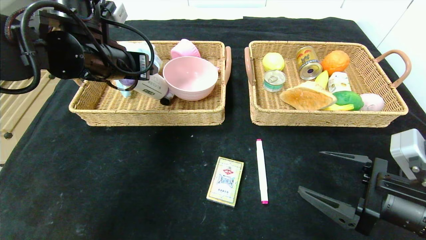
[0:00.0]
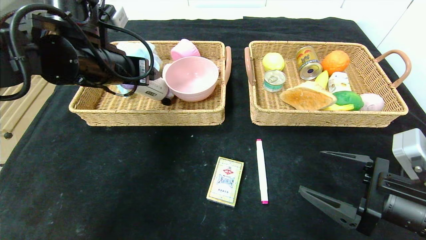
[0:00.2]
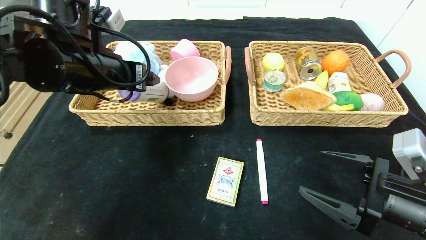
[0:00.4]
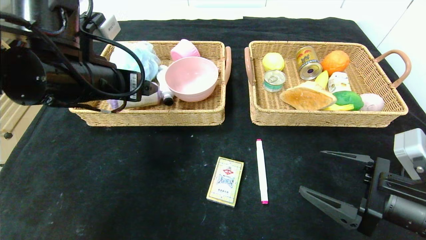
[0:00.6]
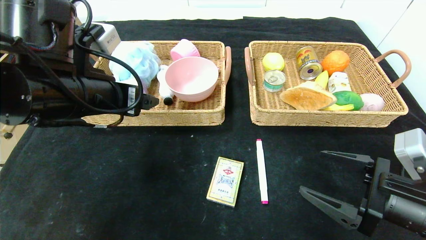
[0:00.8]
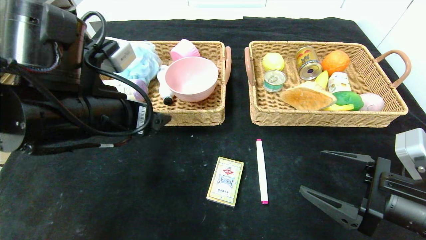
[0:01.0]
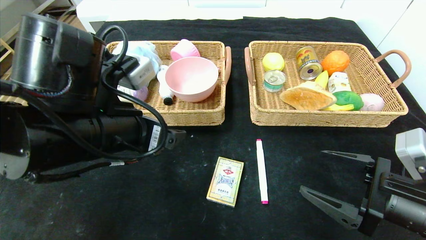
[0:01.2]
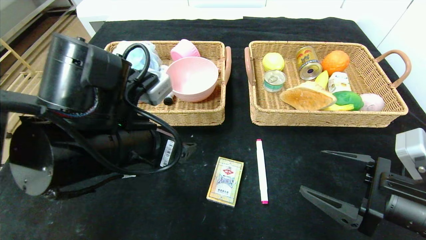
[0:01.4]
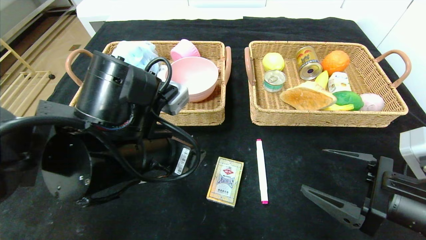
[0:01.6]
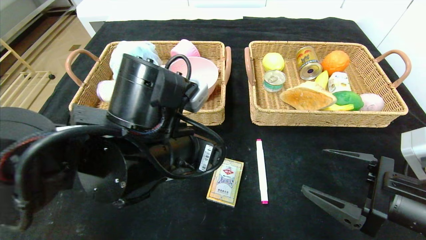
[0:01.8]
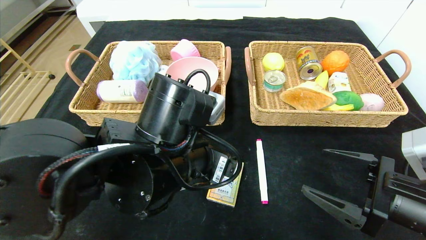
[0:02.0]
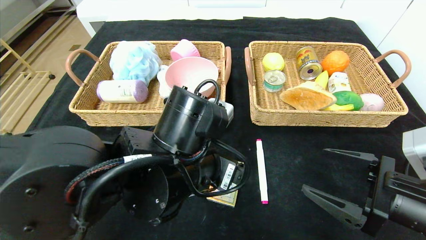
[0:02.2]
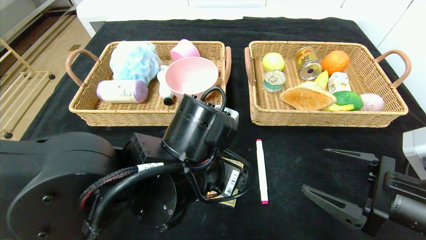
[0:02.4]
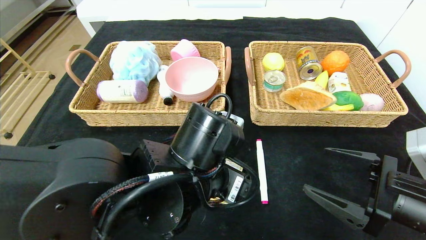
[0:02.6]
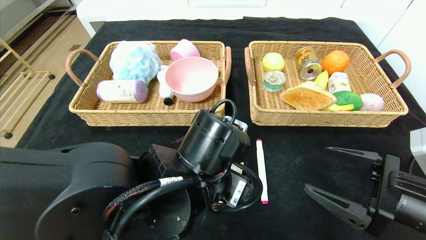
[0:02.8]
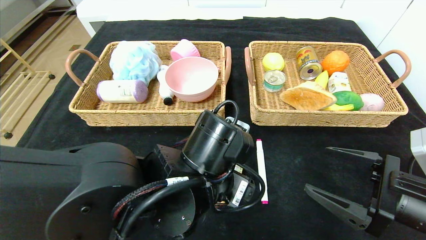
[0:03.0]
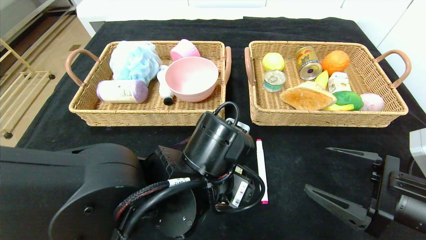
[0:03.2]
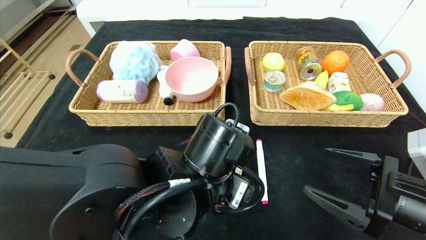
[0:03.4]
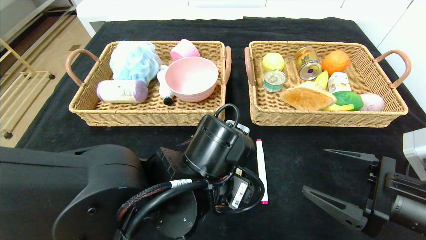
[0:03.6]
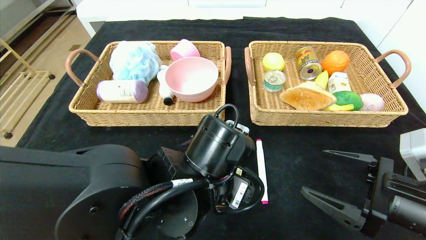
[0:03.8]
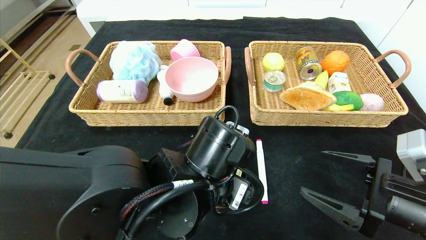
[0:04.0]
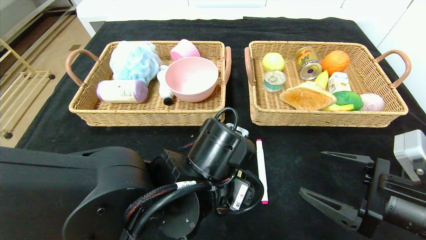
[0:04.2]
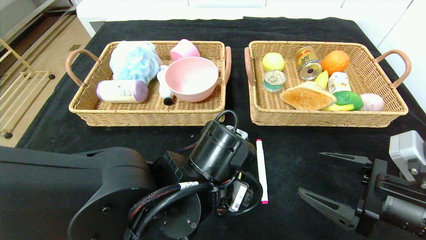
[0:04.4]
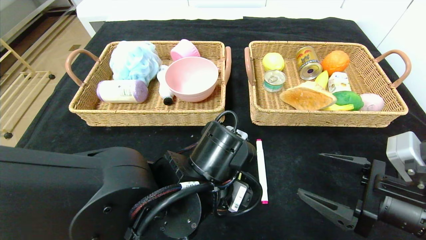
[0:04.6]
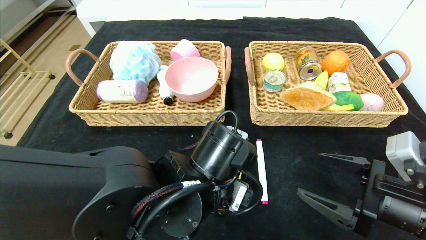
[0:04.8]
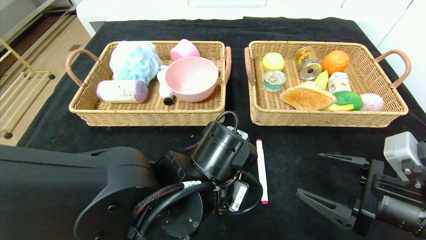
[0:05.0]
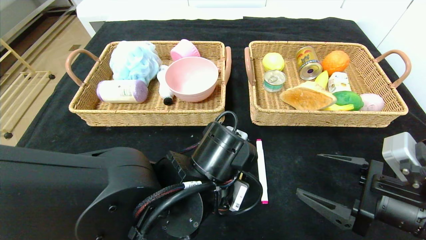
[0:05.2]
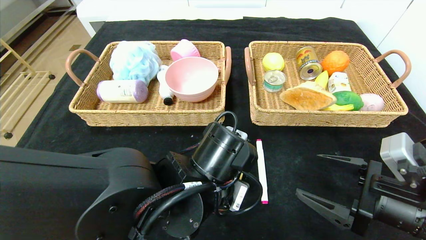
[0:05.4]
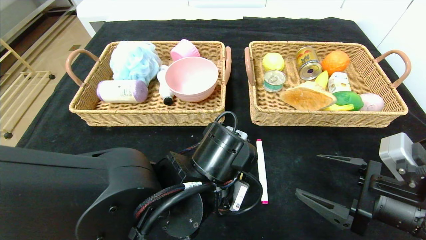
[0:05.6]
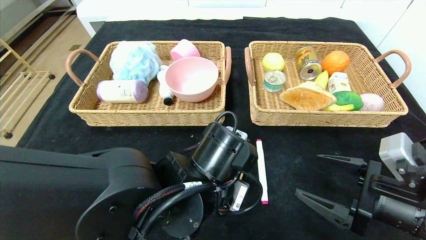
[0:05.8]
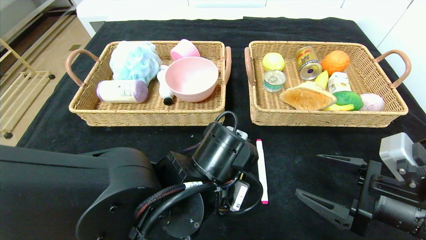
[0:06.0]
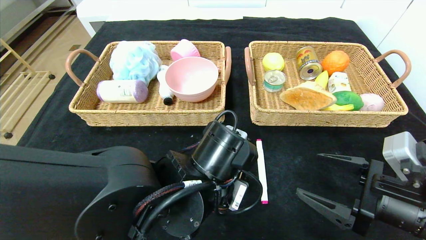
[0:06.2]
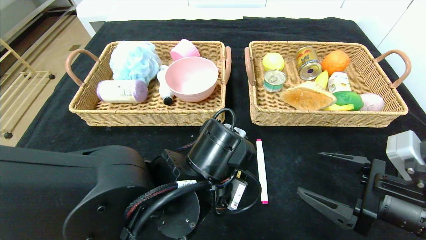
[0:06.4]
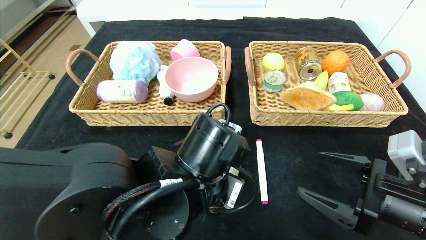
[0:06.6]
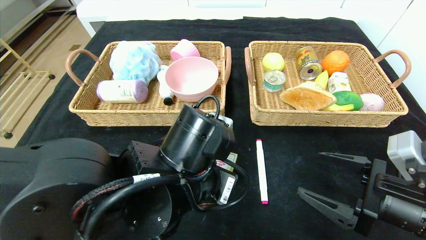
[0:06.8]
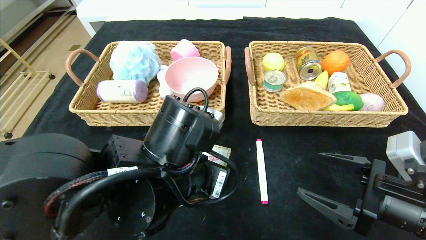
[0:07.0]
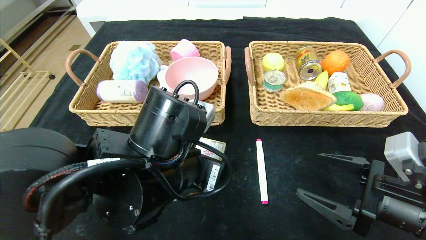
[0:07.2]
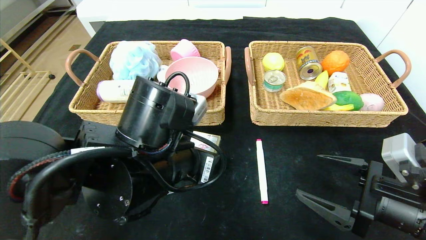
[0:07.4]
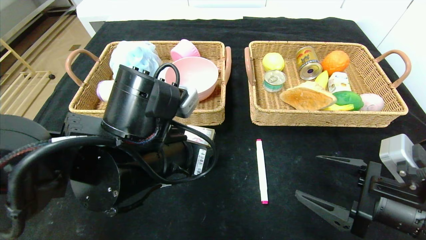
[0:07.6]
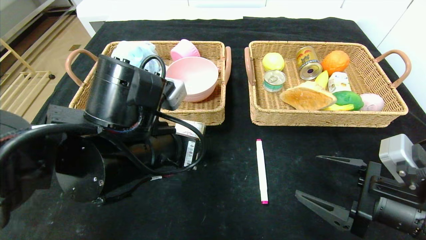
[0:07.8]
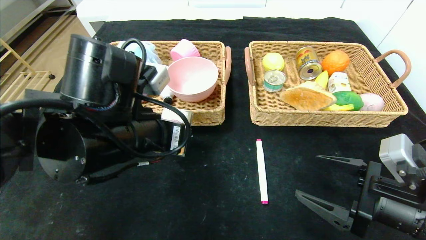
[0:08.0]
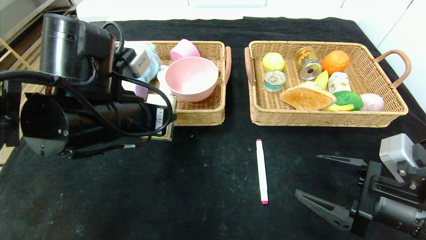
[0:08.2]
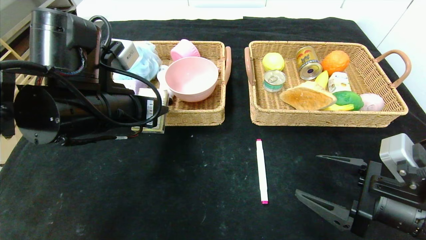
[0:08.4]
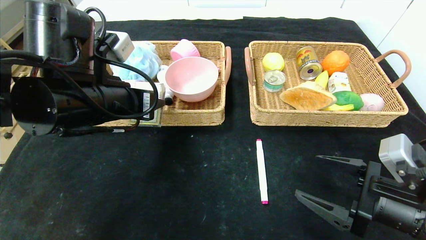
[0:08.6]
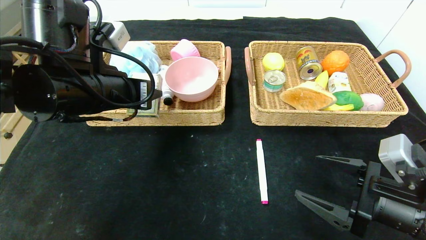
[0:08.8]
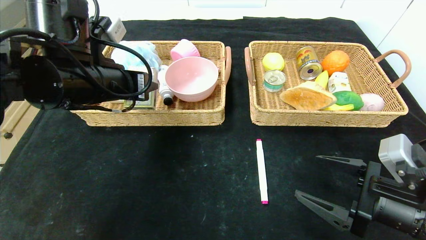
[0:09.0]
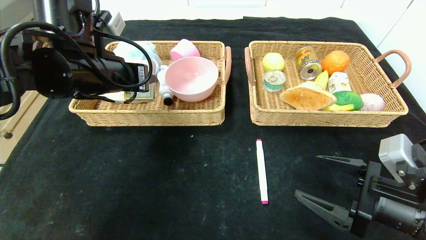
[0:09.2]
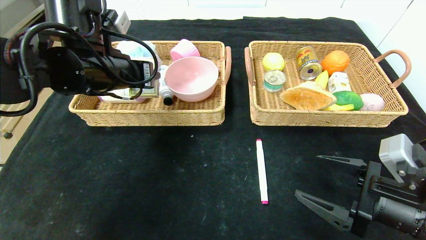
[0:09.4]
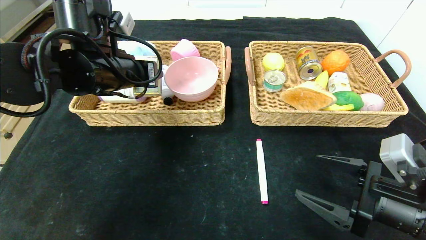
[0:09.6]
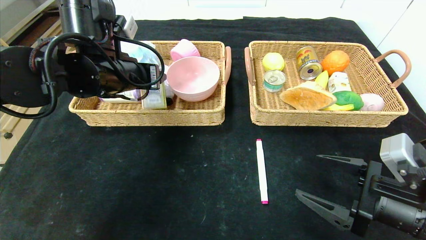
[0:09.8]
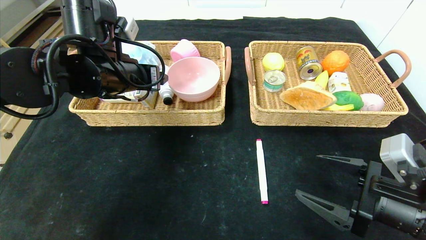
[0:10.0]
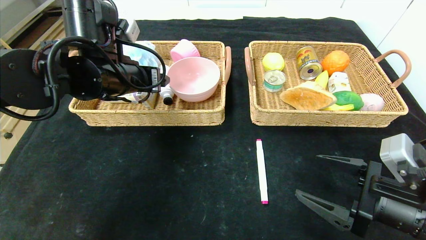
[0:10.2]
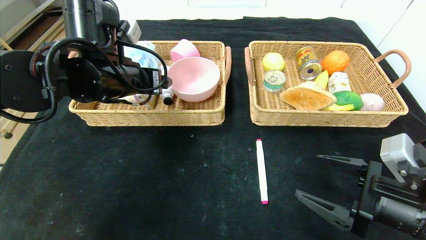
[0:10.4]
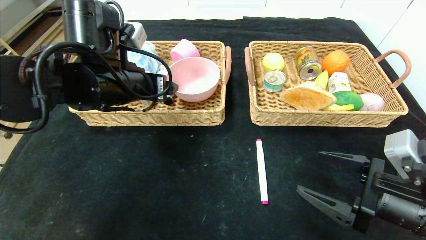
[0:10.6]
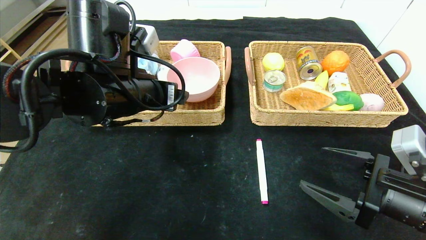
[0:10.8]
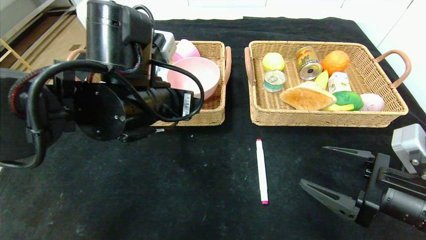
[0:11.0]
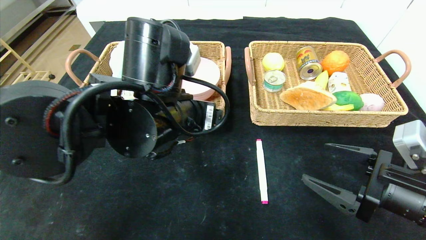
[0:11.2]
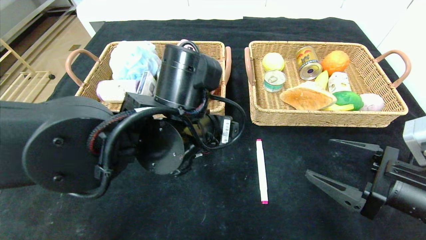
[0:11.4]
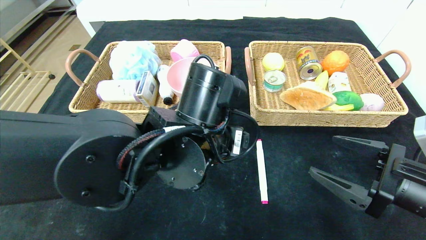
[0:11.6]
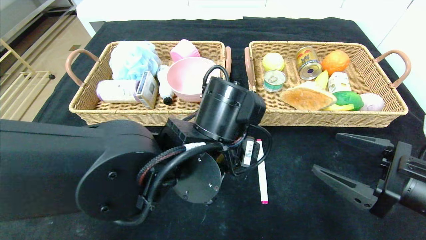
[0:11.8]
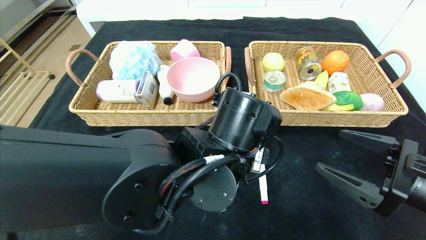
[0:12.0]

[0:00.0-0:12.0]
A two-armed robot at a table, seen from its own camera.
Step, 0:00.2 to 0:09.8: Grasp the playing cards and put it in the left basket.
0:00.0 to 0:01.6: The left gripper goes some 15 cm backward, to the right and downward.
0:01.6 to 0:03.0: The left gripper moves to the right and downward, roughly 10 cm.
0:03.0 to 0:04.4: There are only small adjustments of the grippers.
0:04.4 to 0:06.0: The left gripper closes up.
0:06.0 to 0:07.6: The left gripper is displaced to the left and upward by roughly 10 cm.
0:07.6 to 0:09.0: The left gripper shifts roughly 15 cm to the left, forward and upward.
0:09.0 to 0:10.4: The left gripper opens.
0:10.4 to 0:12.0: The left gripper is displaced to the right, backward and downward by approximately 20 cm.

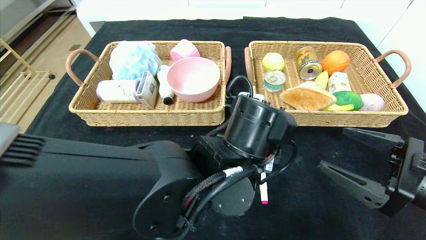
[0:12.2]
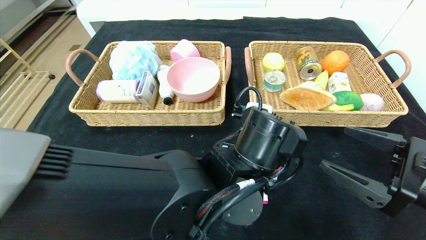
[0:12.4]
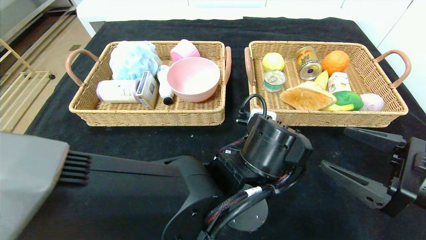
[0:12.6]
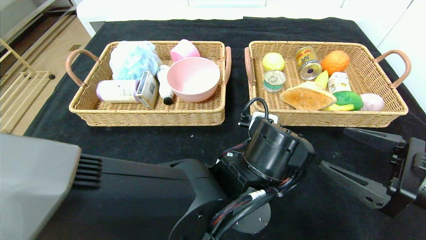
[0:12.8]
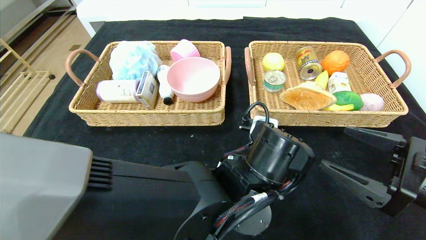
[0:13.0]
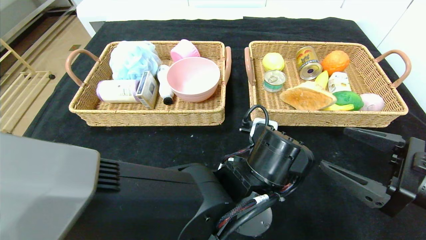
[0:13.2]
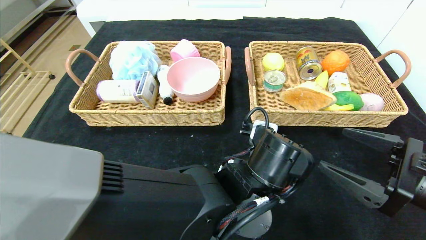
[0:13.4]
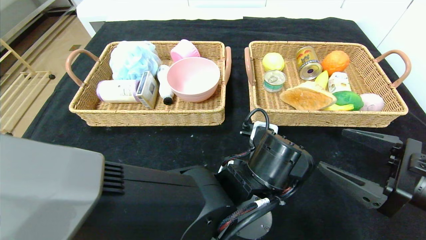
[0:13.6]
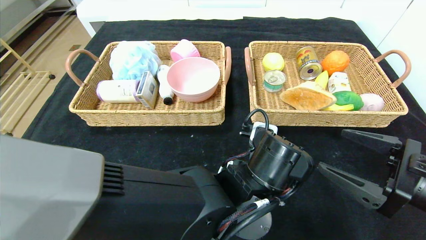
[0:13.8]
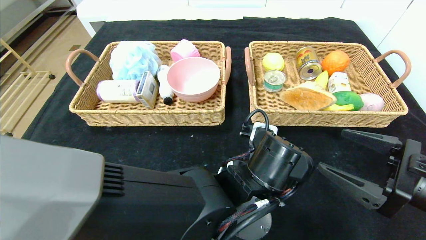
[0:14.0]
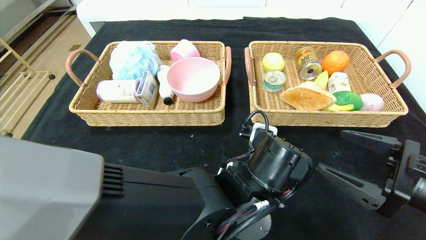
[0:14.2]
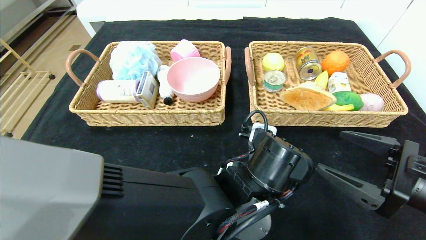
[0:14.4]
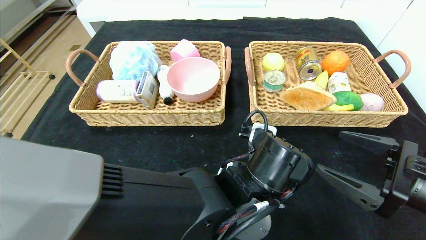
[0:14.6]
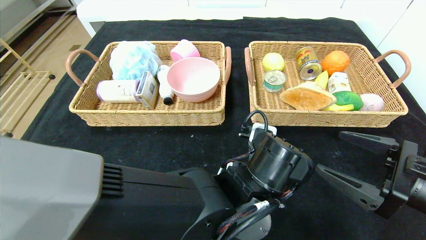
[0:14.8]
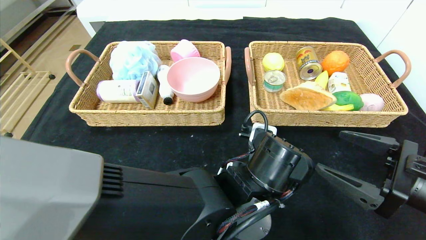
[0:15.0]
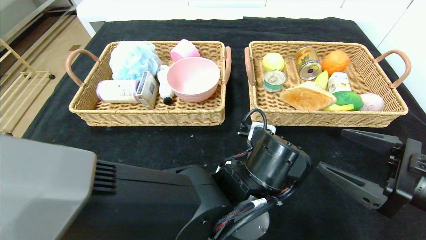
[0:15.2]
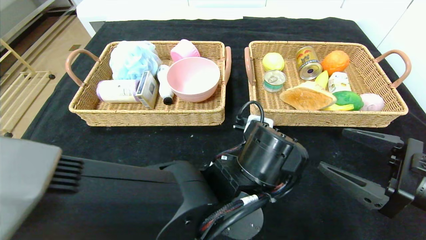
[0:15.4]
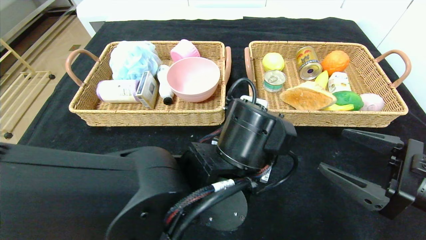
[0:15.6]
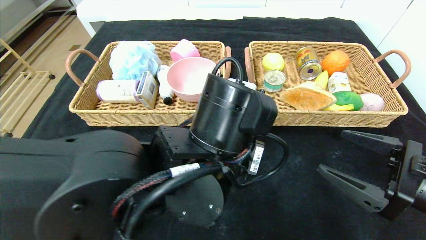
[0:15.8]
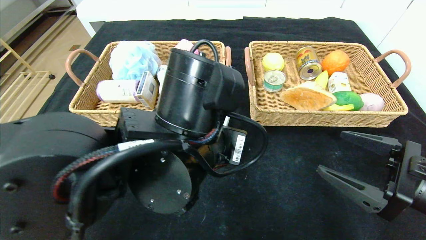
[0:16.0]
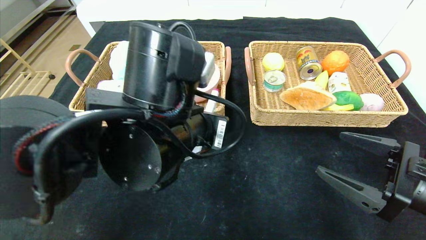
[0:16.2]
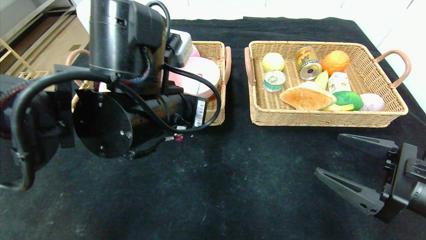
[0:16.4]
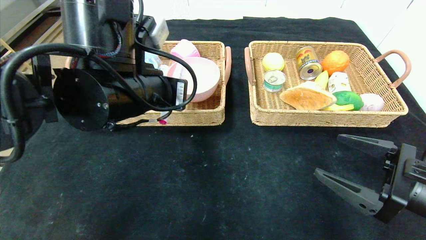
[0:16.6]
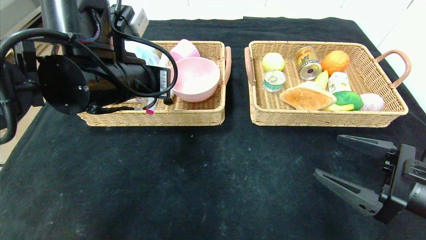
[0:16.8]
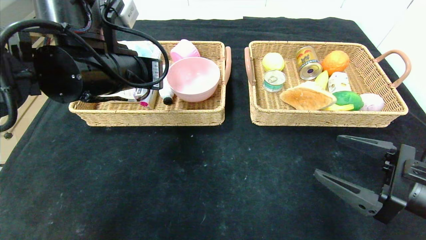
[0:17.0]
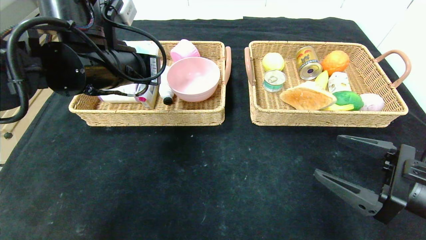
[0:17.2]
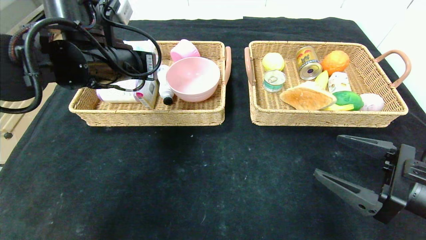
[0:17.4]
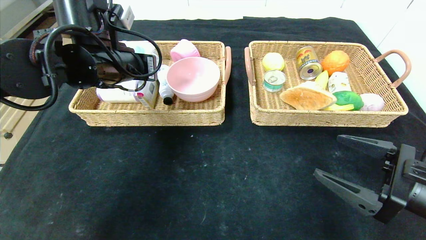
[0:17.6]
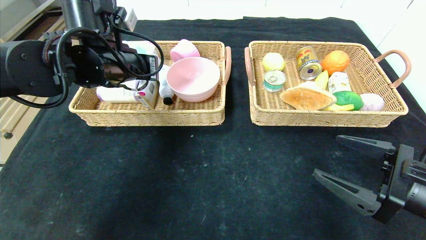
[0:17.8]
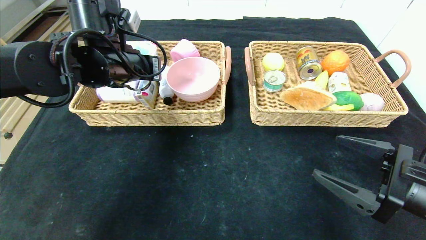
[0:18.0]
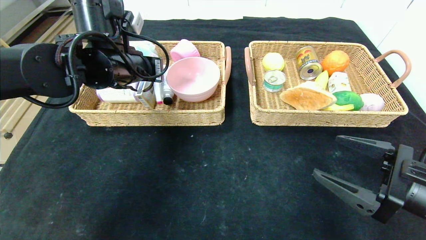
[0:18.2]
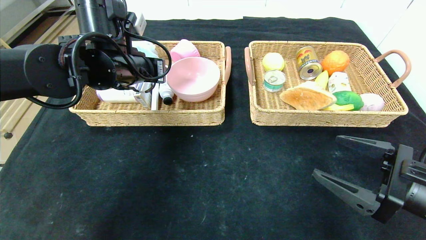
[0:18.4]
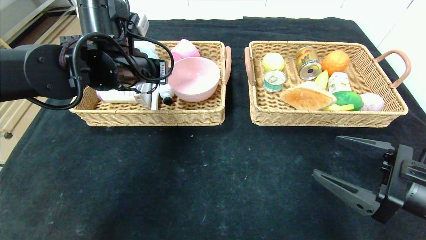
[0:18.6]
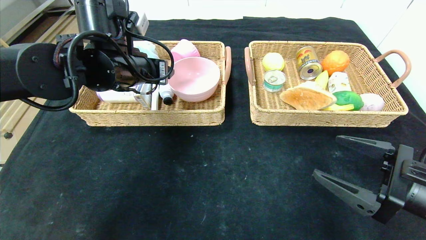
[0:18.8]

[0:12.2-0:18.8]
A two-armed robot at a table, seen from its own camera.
Step, 0:12.2 to 0:18.2: Grasp the red marker and put it in the left basket.
0:13.8 to 0:15.4: The left gripper closes its fingers.
0:15.4 to 0:17.2: The left gripper heads to the left, upward and forward, covering about 25 cm.
0:17.2 to 0:18.8: The left gripper opens its fingers.
